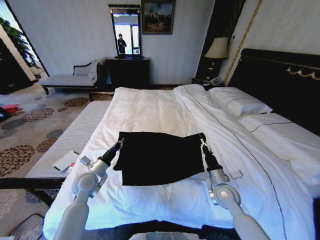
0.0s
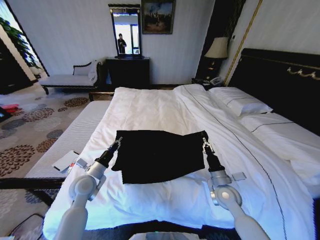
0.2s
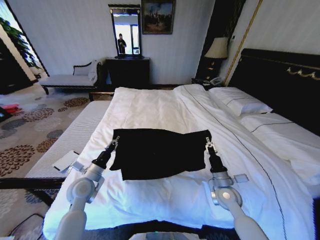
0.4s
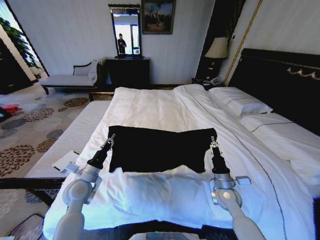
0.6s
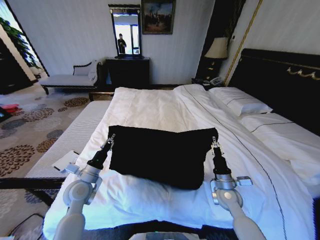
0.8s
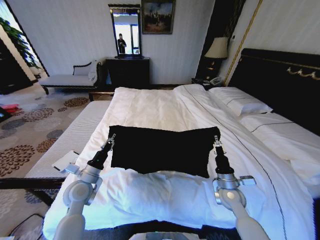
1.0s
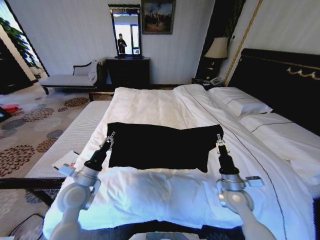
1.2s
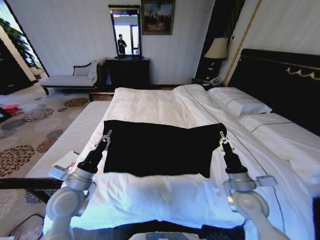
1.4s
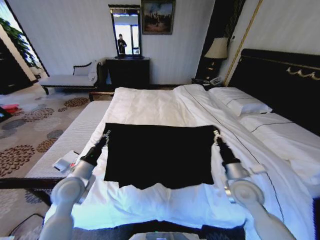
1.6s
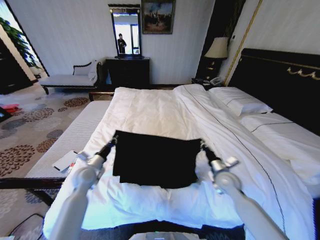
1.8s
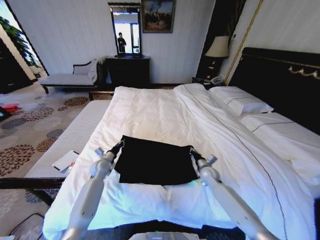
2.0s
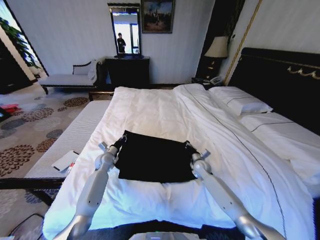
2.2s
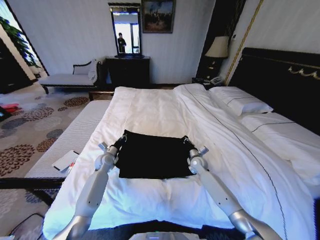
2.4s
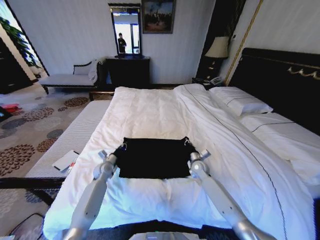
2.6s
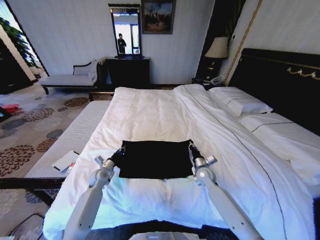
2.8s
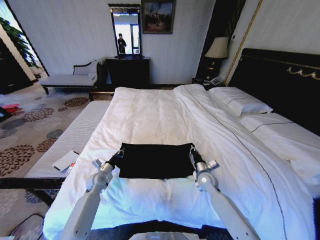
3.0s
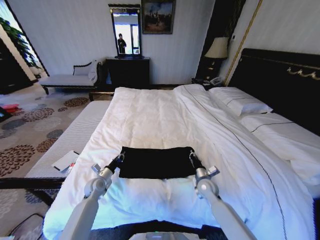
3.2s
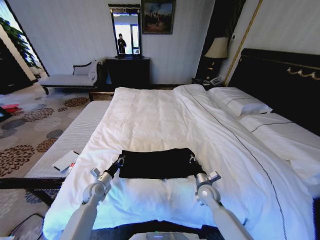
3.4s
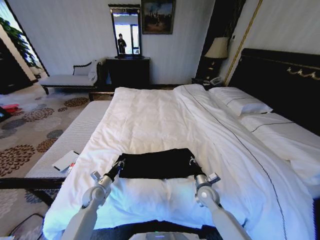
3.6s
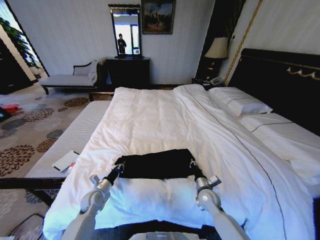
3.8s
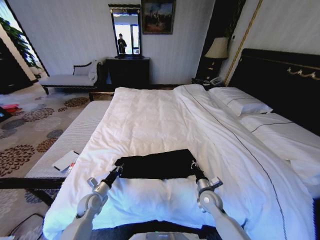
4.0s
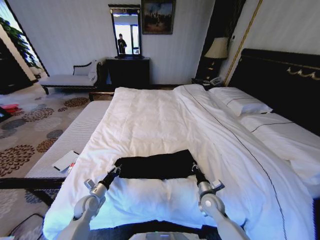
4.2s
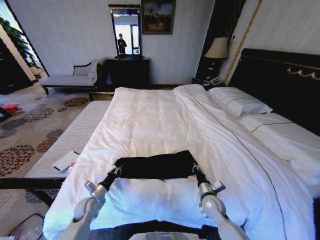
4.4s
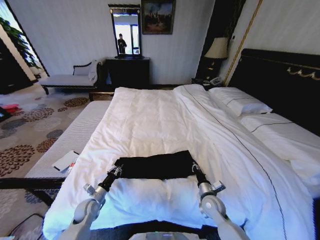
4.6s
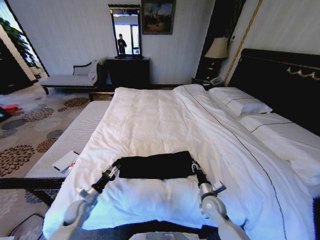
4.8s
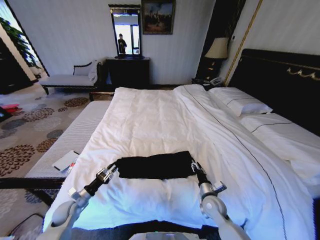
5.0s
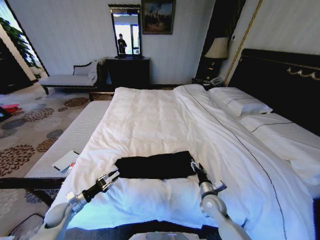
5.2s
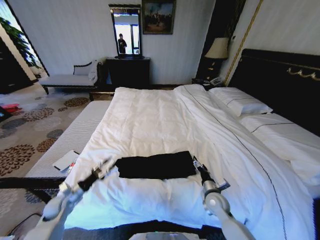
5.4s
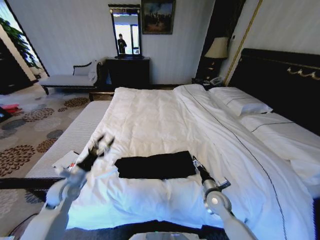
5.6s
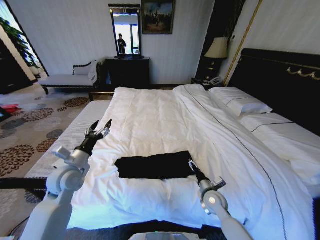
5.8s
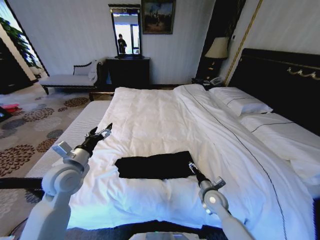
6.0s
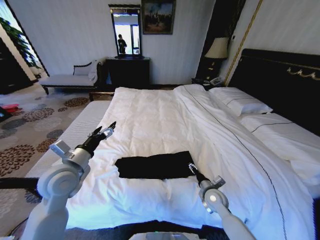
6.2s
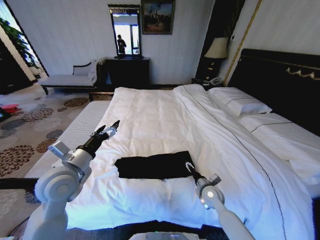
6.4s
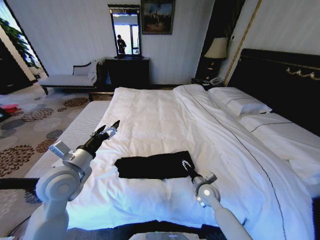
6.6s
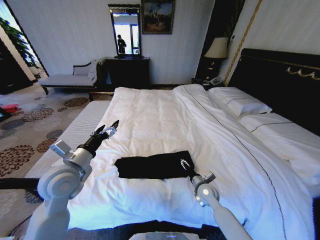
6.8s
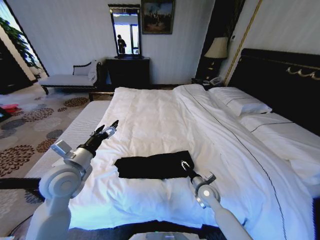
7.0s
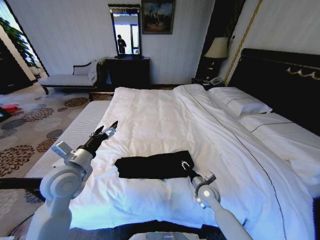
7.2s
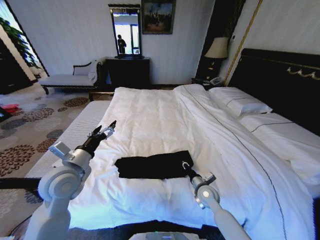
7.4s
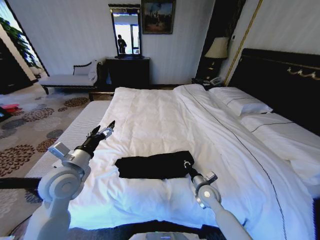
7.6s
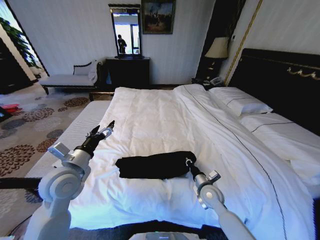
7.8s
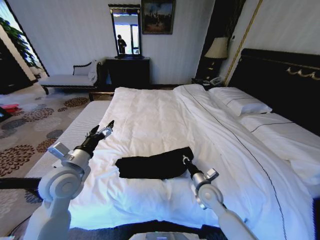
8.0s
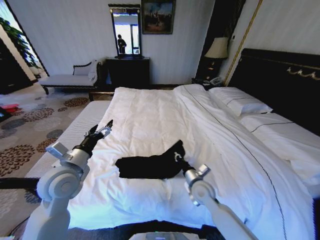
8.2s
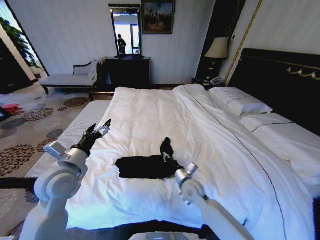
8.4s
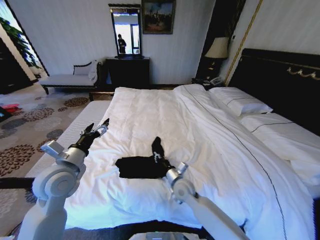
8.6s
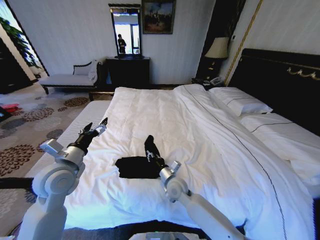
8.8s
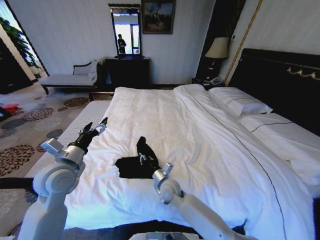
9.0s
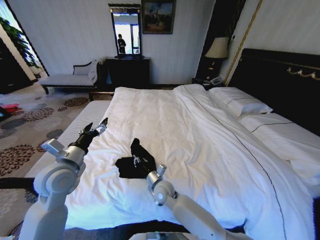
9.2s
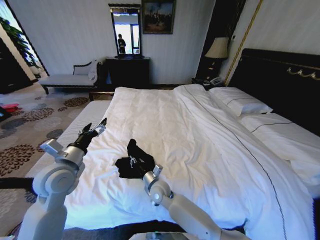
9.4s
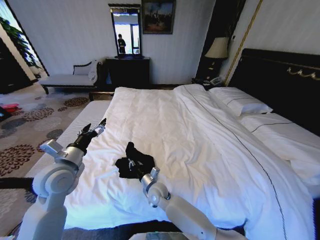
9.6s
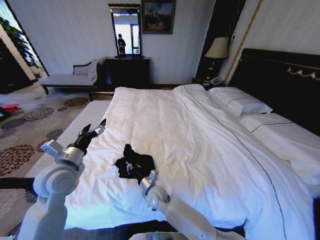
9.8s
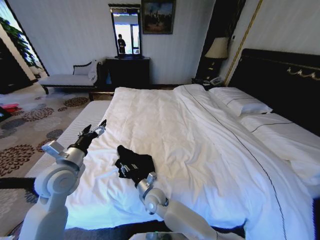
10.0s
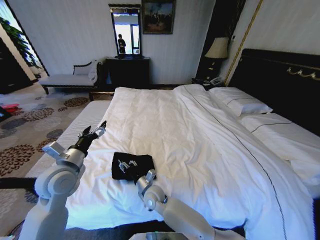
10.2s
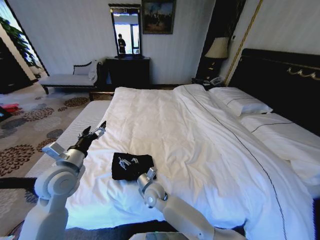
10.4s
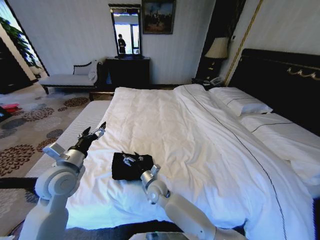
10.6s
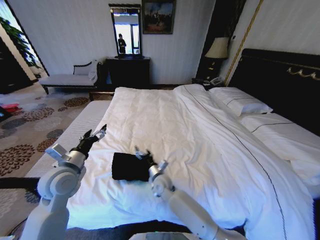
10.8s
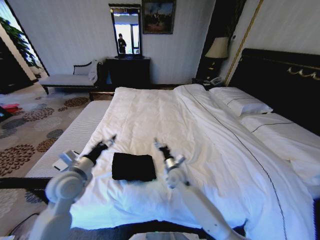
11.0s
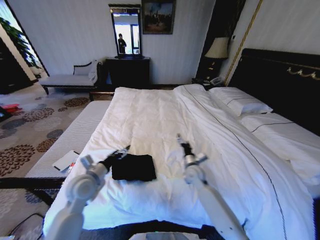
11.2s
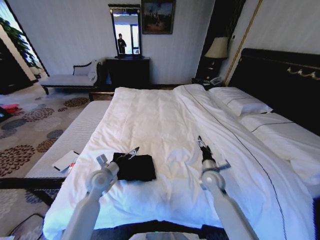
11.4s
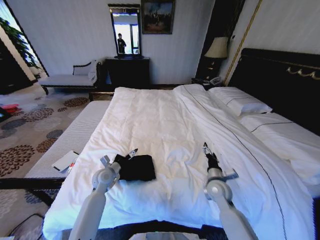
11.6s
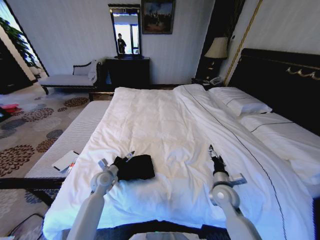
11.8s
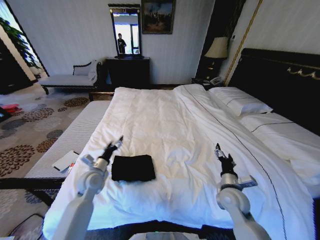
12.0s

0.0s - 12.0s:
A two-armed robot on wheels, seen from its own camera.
Task of the whole recording: Fold the clothes on the bed.
0.0s - 1.6s: The left gripper goes some 10 cm upward and backward, while the right gripper heads upward, covering approximately 10 cm.
1.6s - 3.0s: Both grippers travel together downward and forward, approximately 20 cm.
3.0s - 4.4s: The two grippers go approximately 10 cm backward.
4.4s - 6.0s: The left gripper heads upward, covering approximately 25 cm, and opens, while the right gripper opens its fingers.
6.0s - 7.6s: The right gripper closes up.
7.6s - 9.0s: The right gripper goes approximately 20 cm to the left.
9.0s - 10.4s: The right gripper goes roughly 5 cm to the left, and opens its fingers.
10.4s - 12.0s: The right gripper is displaced to the right by roughly 30 cm; the left gripper shifts roughly 15 cm downward and forward.

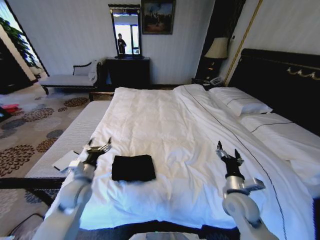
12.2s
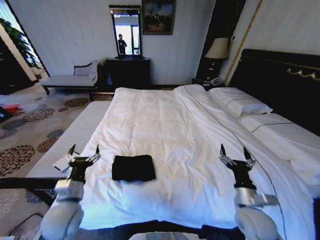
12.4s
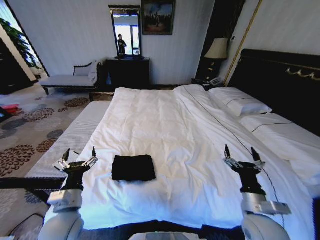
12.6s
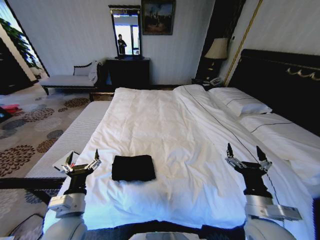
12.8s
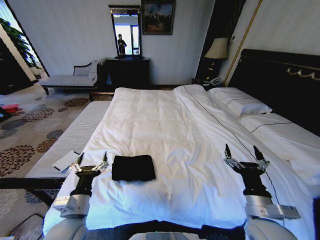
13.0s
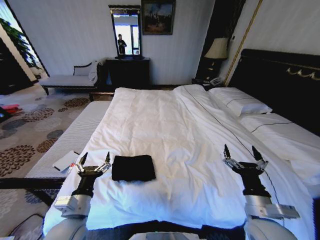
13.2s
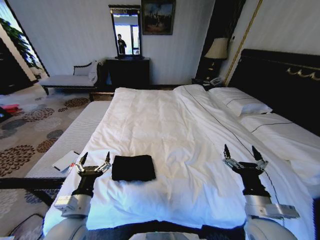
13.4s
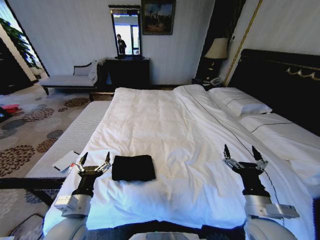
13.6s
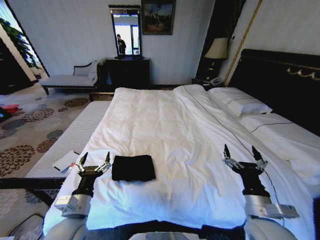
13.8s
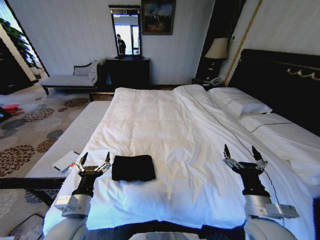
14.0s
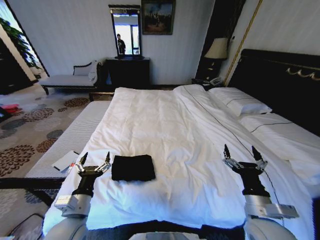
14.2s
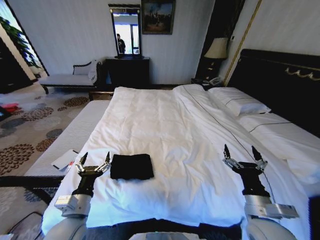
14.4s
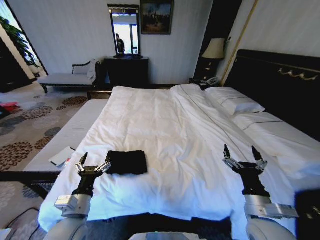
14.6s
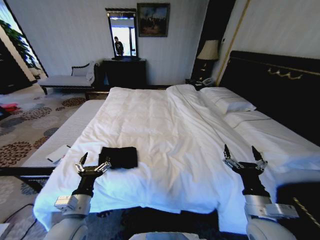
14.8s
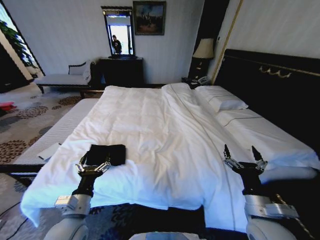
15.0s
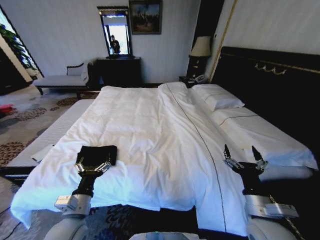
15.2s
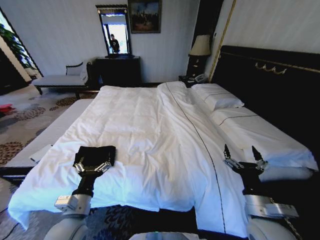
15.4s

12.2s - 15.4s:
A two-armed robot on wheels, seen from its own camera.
Task of the whole recording: Fold the clothes on the bed.
12.2s - 13.8s: Both grippers move backward, approximately 10 cm.
